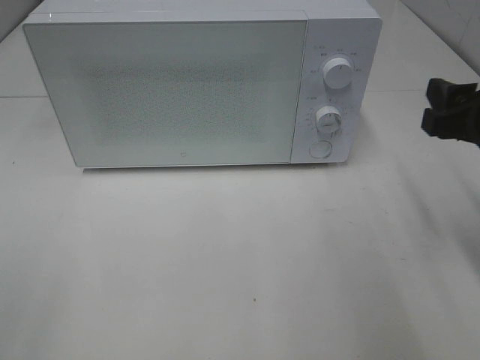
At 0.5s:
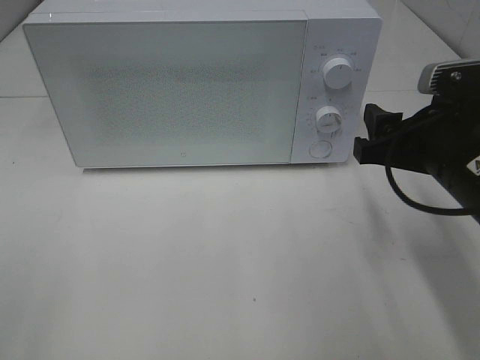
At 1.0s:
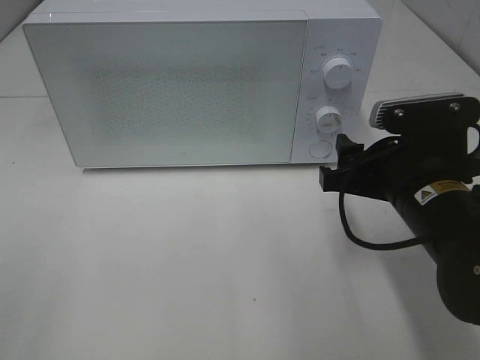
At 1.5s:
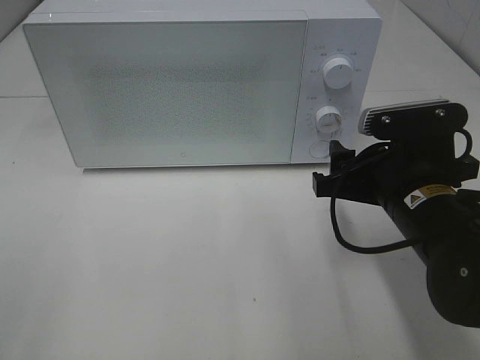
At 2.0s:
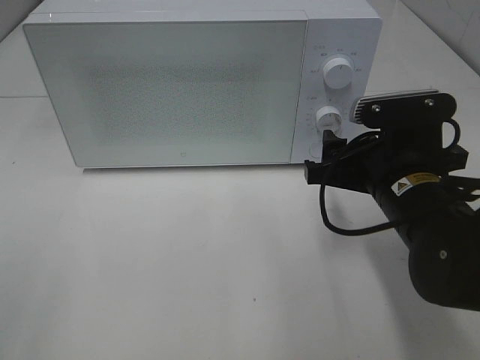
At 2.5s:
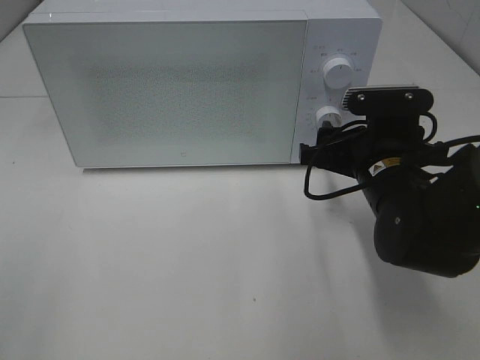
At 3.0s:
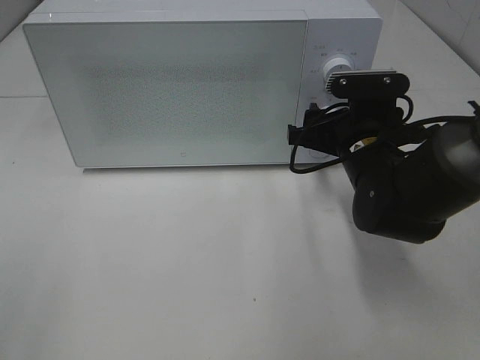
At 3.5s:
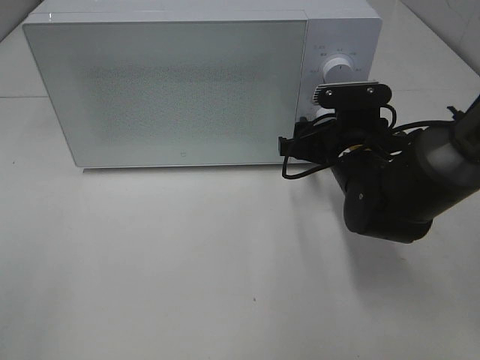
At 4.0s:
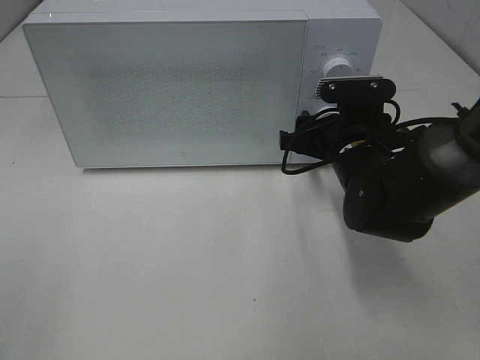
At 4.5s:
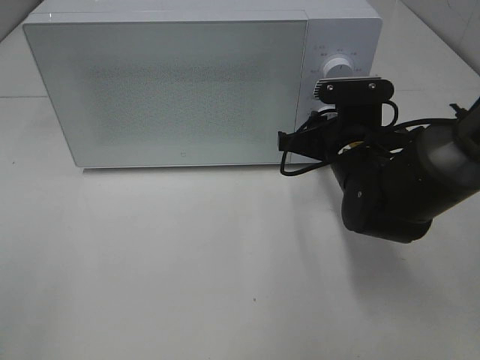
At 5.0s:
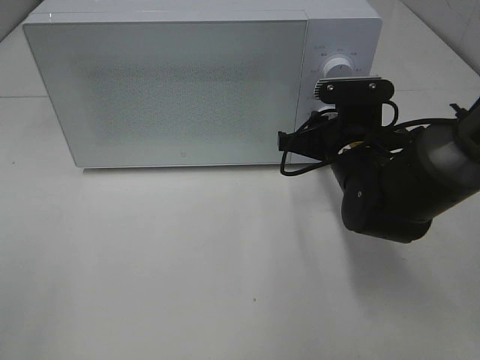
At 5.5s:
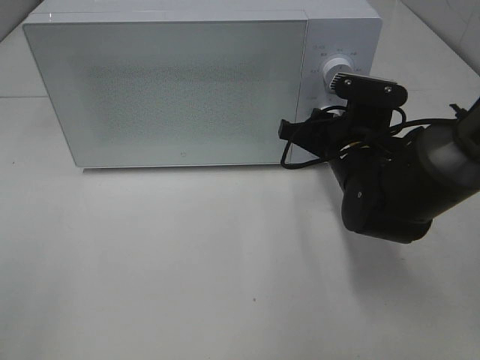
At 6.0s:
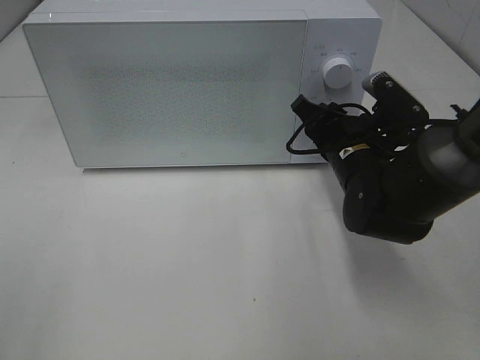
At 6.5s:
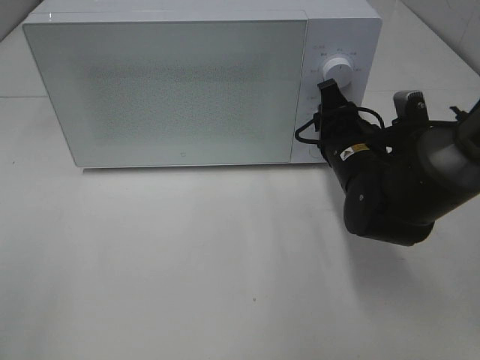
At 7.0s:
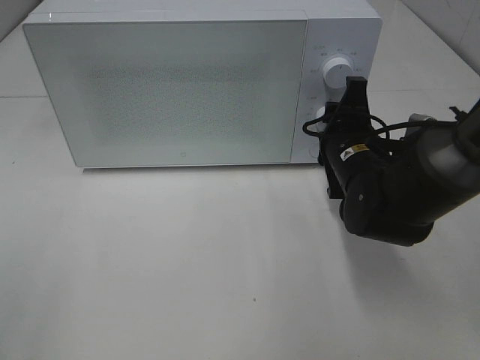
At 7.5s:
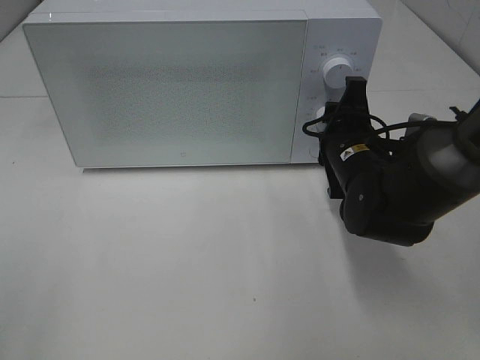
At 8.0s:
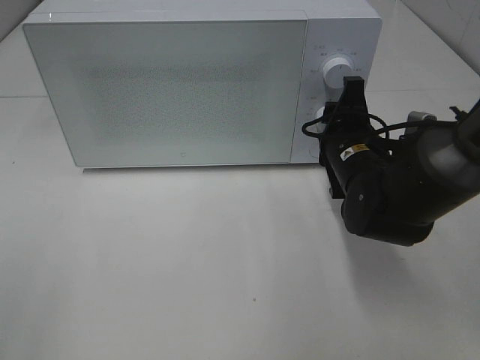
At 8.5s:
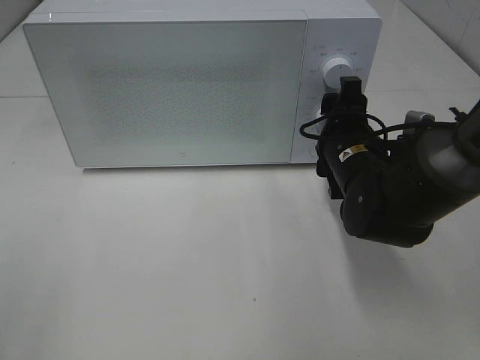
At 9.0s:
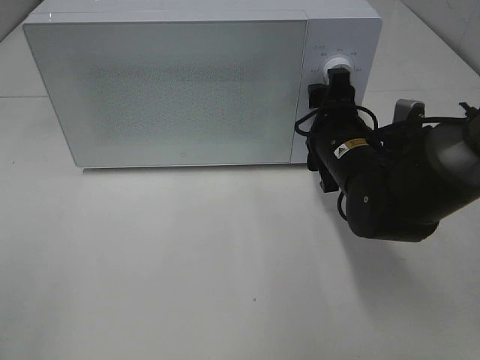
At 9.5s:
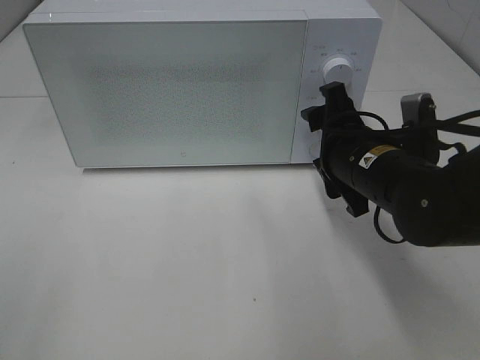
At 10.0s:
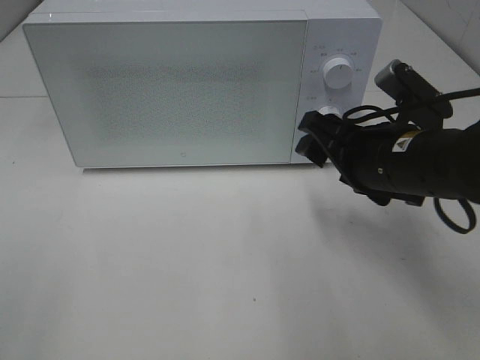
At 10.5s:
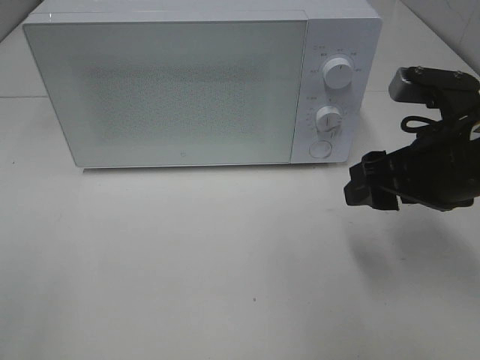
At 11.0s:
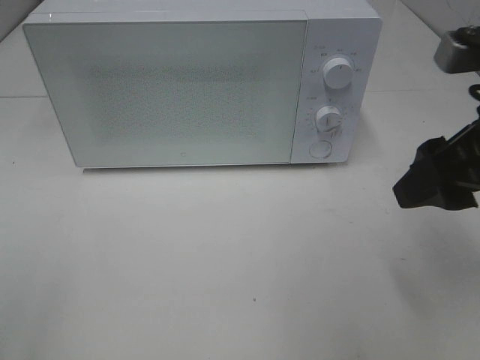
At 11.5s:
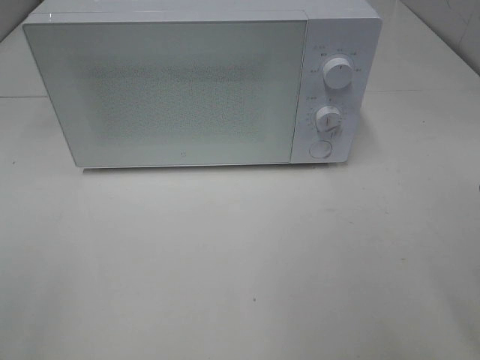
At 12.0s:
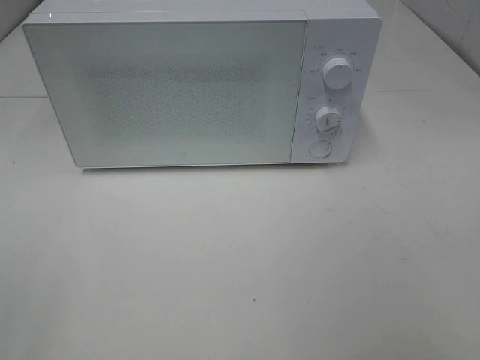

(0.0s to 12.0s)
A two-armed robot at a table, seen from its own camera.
Task of the whole recording: Heat Sandwich.
Step, 0.0s - 9.0s: Right hand: twist timer button.
0.0s - 2.0s: The right gripper heads to the left and downward, covering roughly 10 cm.
2.0s - 4.0s: The right gripper moves forward, roughly 10 cm.
4.0s - 6.0s: The right gripper closes up.
8.0s - 10.0s: The right gripper is displaced backward and upward by roughly 10 cm.
10.0s - 12.0s: The right gripper shifts about 25 cm backward, upward and to the right.

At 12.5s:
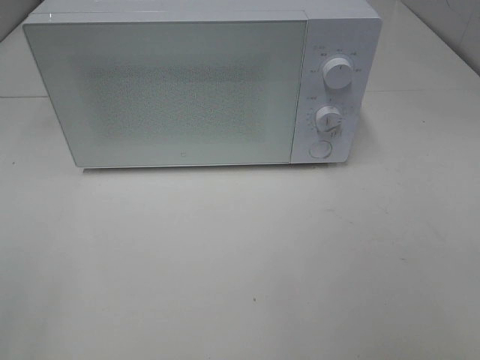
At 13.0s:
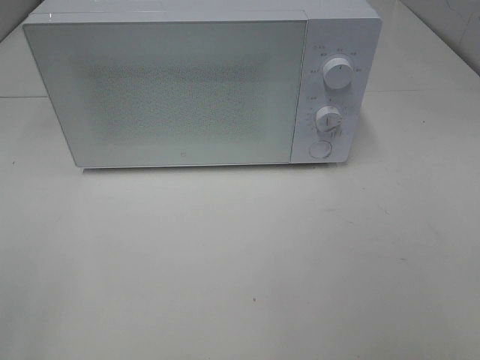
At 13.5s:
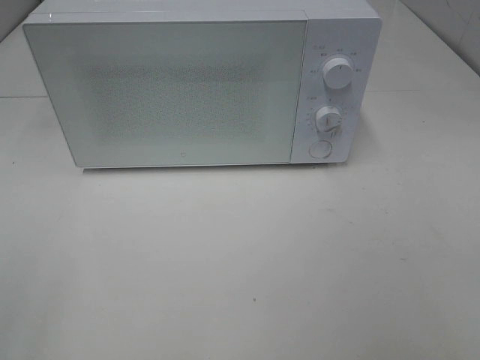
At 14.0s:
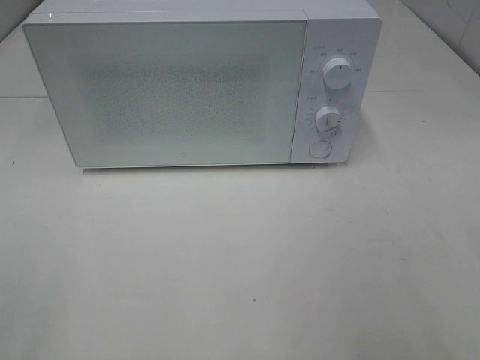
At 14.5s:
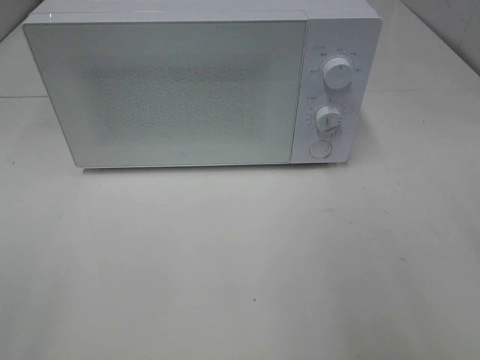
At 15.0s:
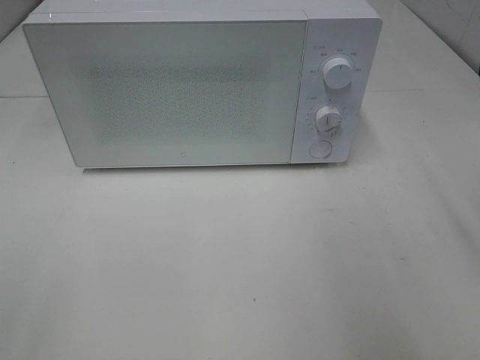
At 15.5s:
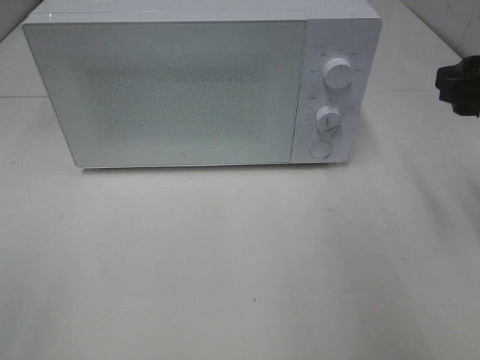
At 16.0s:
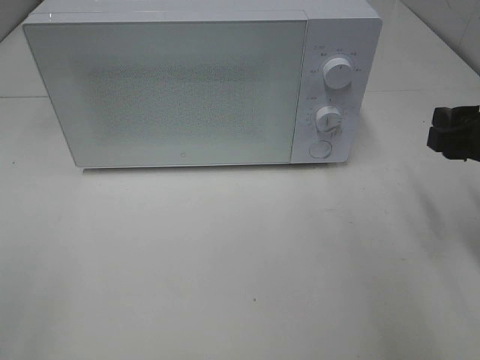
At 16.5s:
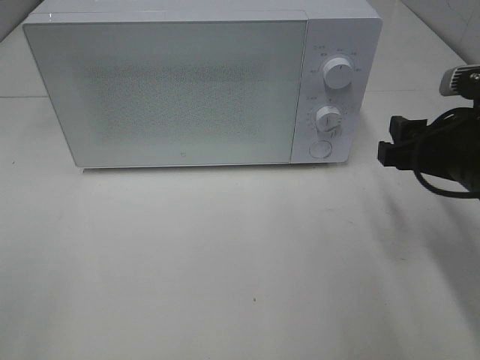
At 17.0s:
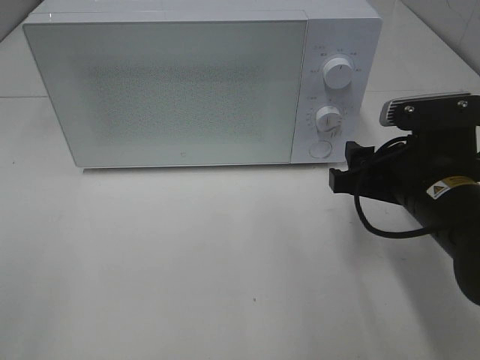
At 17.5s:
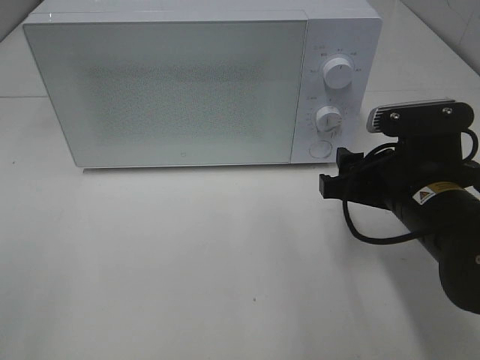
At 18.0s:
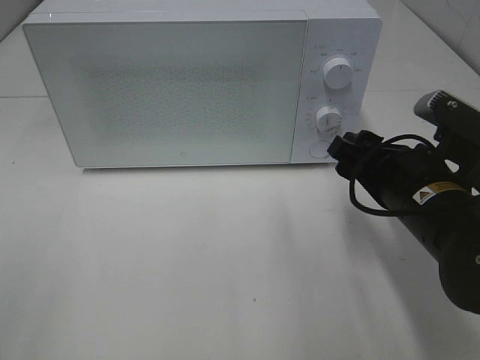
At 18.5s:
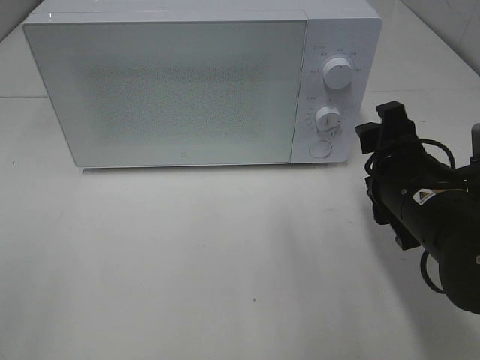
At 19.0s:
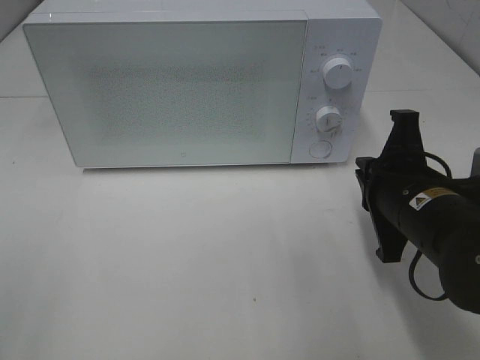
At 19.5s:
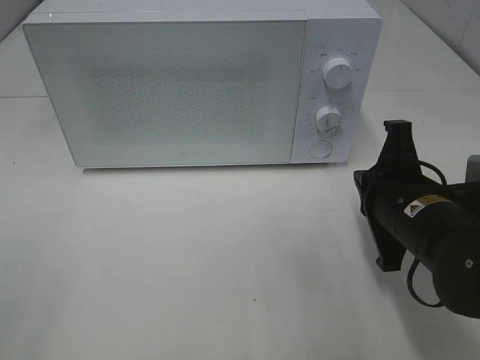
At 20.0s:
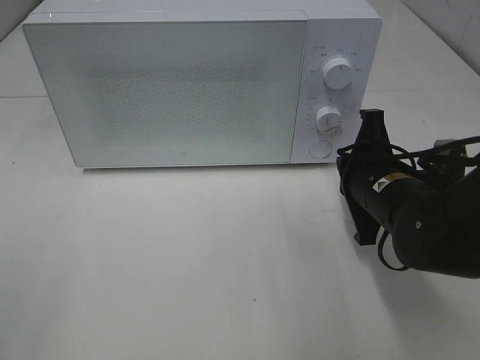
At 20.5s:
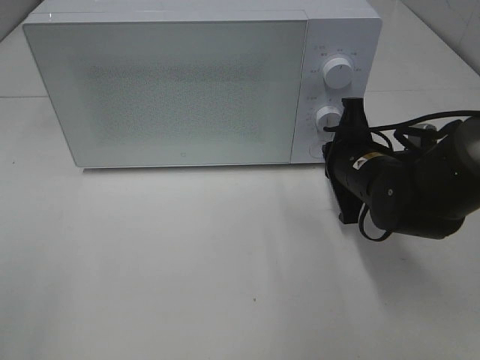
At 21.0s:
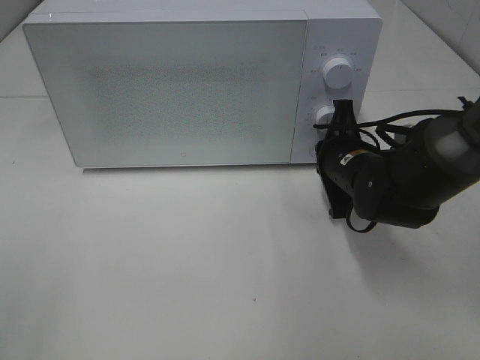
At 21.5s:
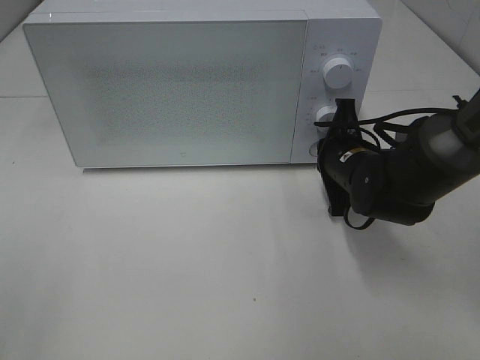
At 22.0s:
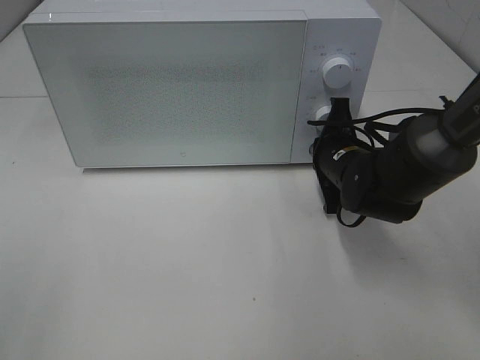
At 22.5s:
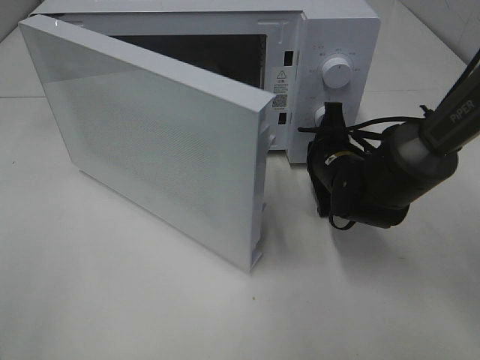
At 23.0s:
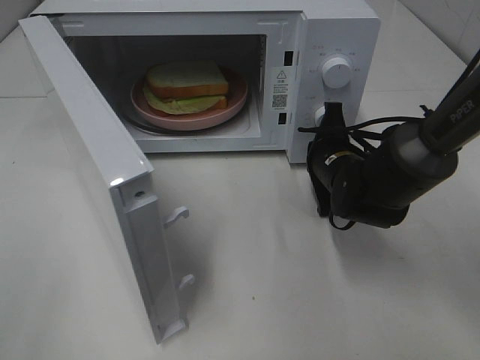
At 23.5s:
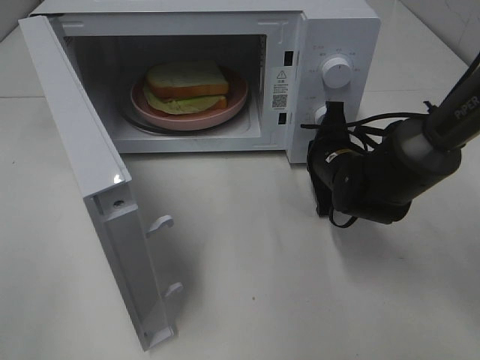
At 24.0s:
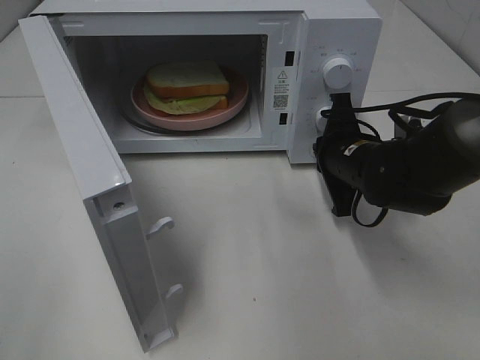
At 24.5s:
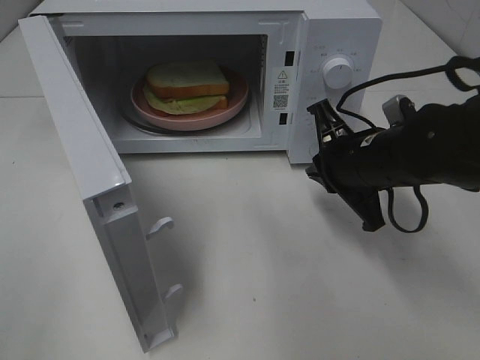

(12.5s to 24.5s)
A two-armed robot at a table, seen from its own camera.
Task of the whole recording: Heat Sandwich.
Step, 12.5s - 24.0s: Right hand: press the switch.
14.5s - 16.5s: The right gripper goes approximately 15 cm downward, forward and to the left.
16.5s - 18.5s: The right gripper travels to the left by approximately 5 cm.
18.5s - 20.5s: The right gripper shifts approximately 10 cm forward, and closes its fingers.
20.5s - 22.5s: The right gripper ends up roughly 5 cm from where it was.
22.5s - 24.5s: The right gripper heads upward and backward, covering some 10 cm.

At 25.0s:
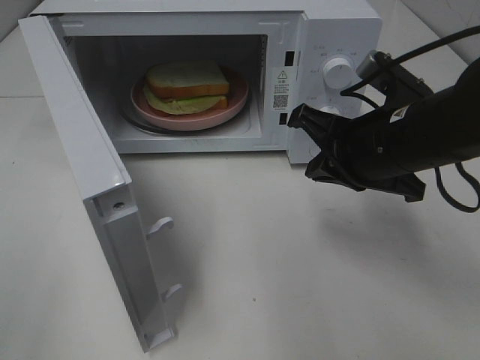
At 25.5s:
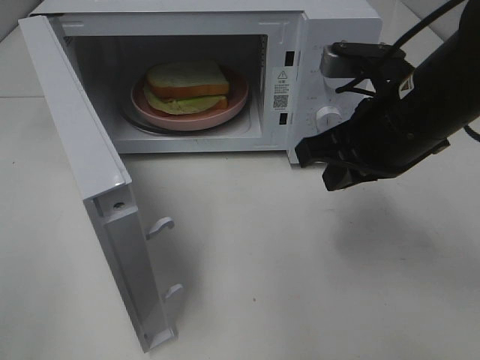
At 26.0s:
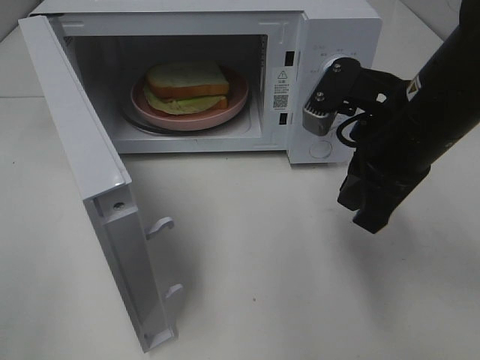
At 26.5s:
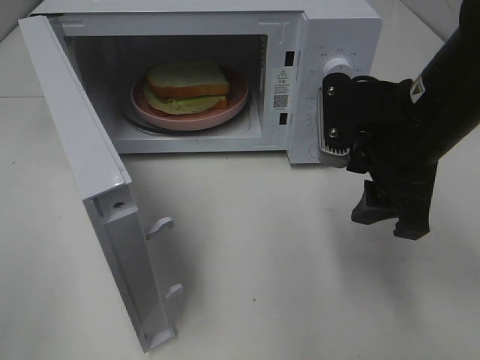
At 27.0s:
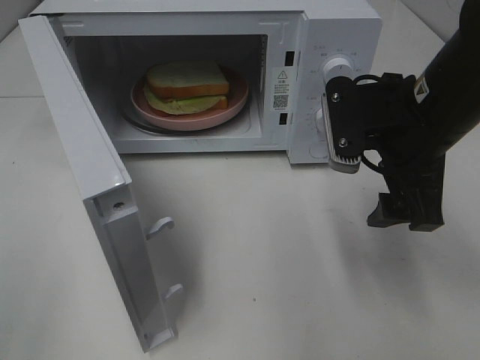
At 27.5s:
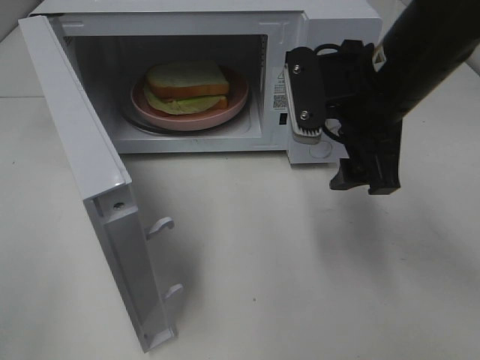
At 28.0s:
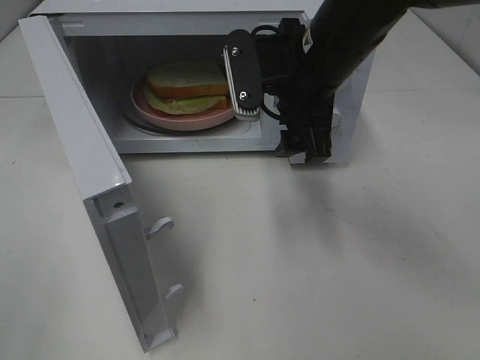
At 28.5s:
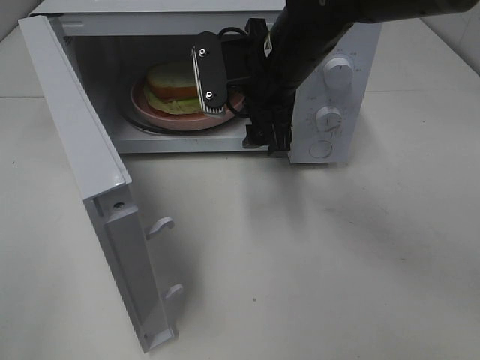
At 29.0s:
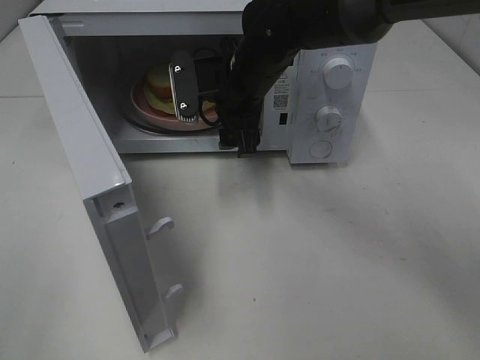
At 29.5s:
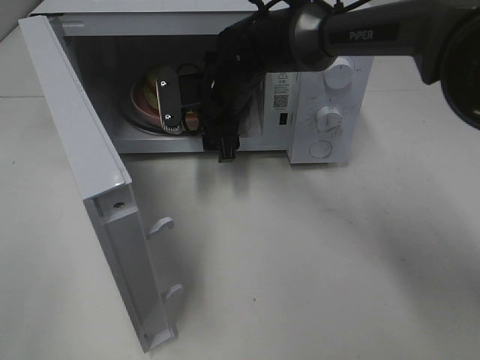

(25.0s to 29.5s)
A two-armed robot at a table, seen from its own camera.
Task of the whole recording: Heat Sandwich.
25.0s - 27.0s: The right gripper opens up.
27.0s - 29.5s: The right gripper moves to the left, forward and downward, some 25 cm.
